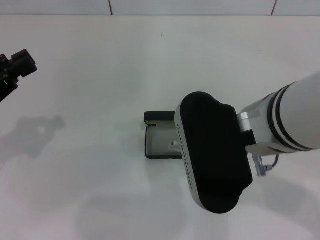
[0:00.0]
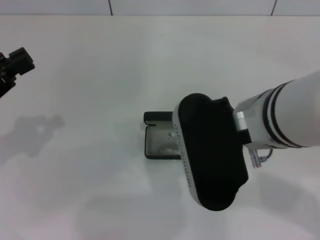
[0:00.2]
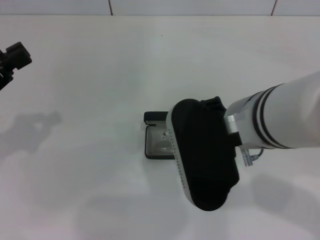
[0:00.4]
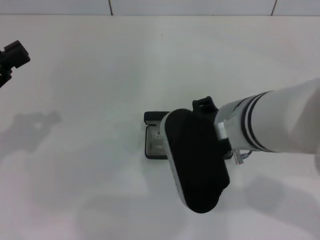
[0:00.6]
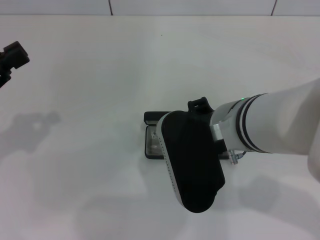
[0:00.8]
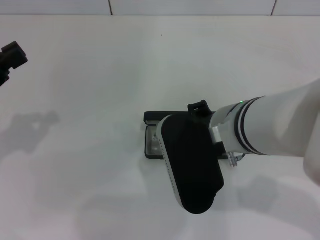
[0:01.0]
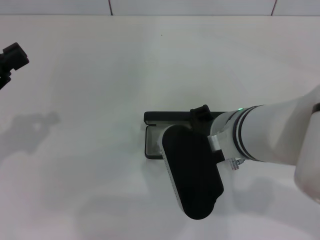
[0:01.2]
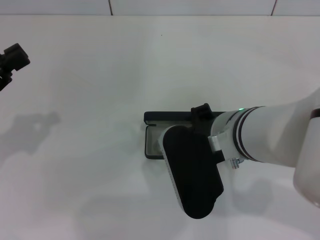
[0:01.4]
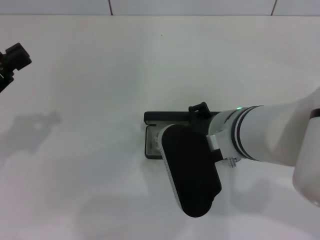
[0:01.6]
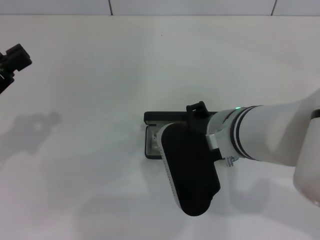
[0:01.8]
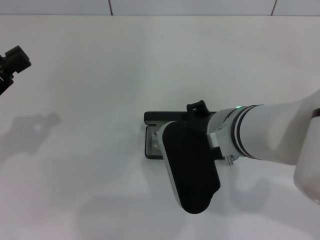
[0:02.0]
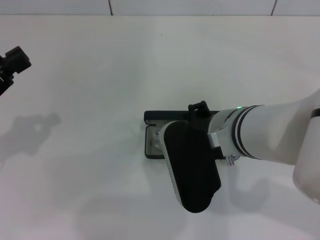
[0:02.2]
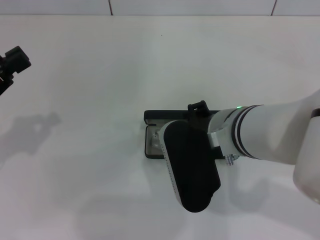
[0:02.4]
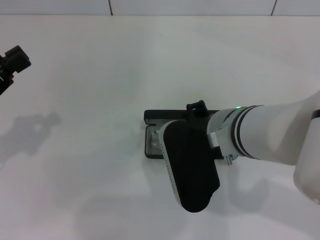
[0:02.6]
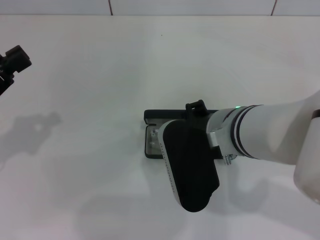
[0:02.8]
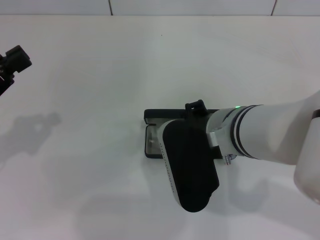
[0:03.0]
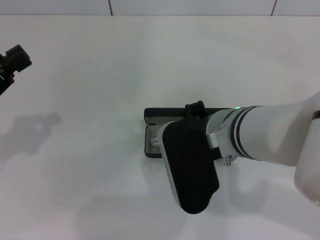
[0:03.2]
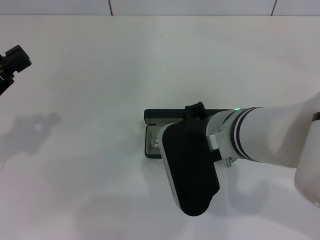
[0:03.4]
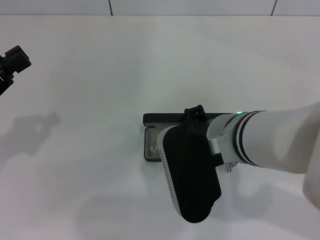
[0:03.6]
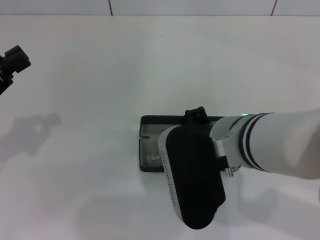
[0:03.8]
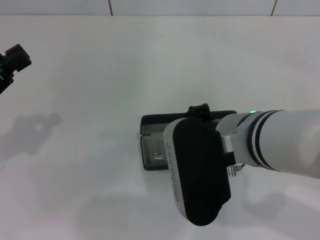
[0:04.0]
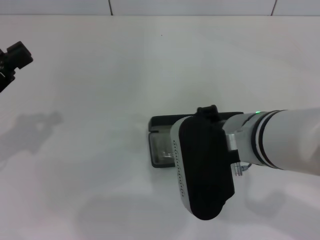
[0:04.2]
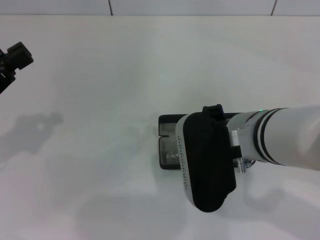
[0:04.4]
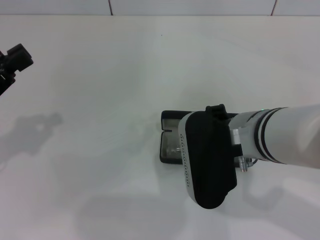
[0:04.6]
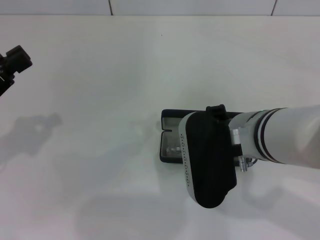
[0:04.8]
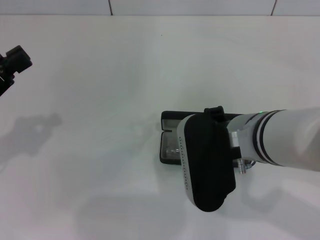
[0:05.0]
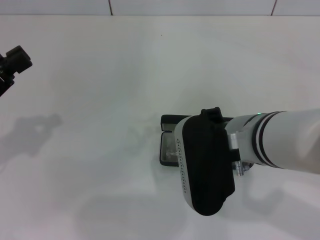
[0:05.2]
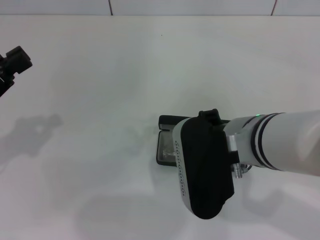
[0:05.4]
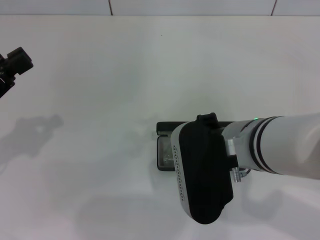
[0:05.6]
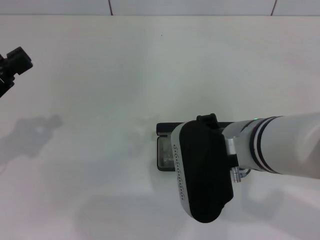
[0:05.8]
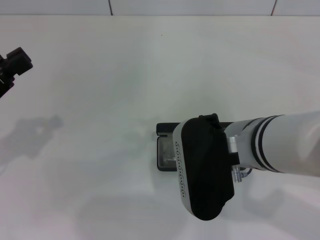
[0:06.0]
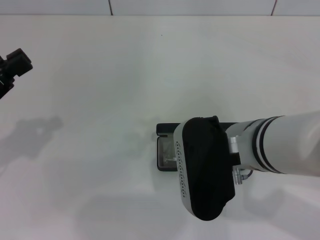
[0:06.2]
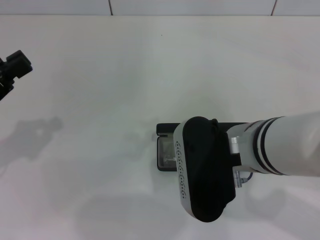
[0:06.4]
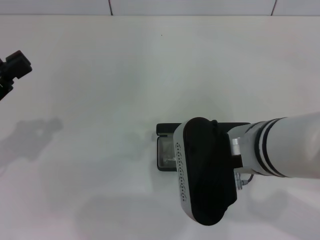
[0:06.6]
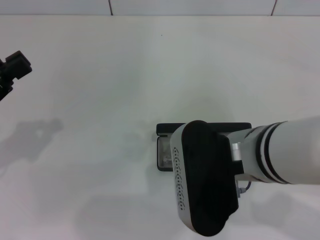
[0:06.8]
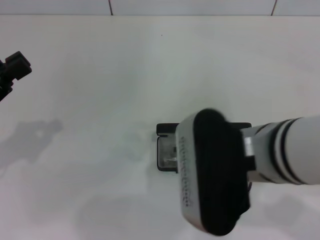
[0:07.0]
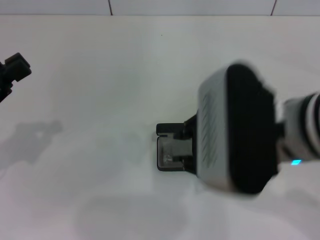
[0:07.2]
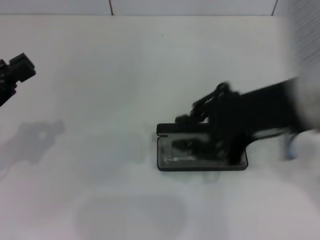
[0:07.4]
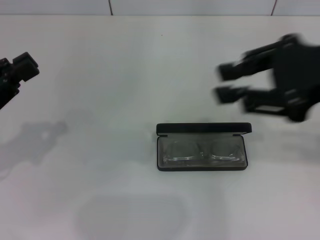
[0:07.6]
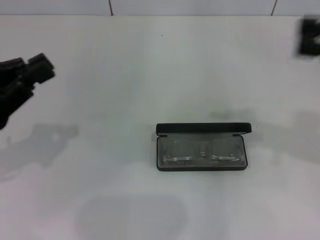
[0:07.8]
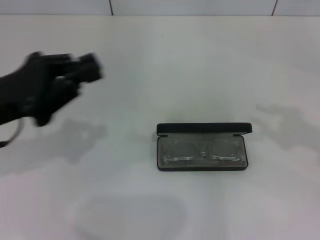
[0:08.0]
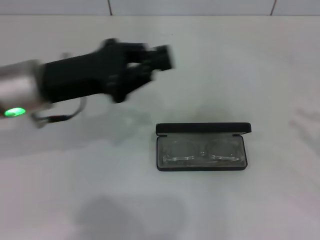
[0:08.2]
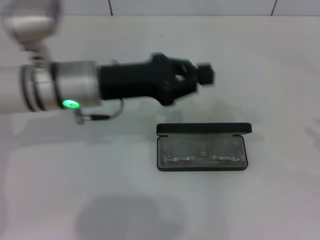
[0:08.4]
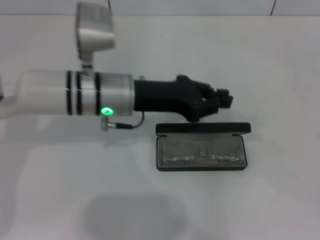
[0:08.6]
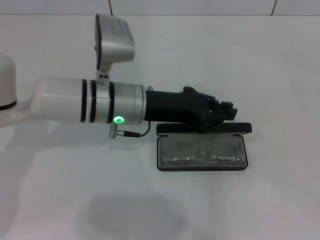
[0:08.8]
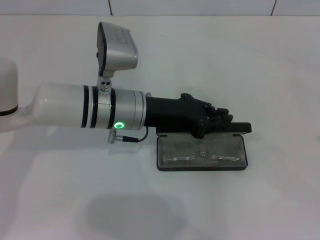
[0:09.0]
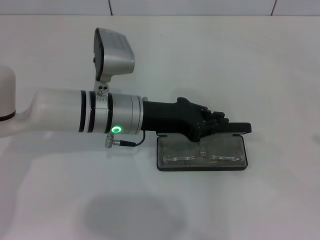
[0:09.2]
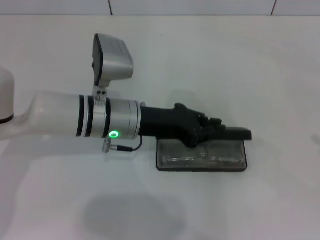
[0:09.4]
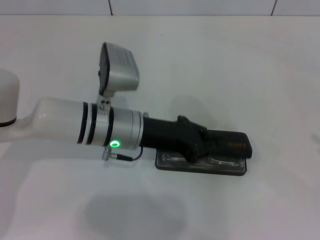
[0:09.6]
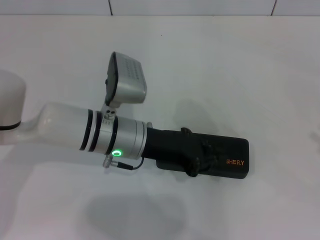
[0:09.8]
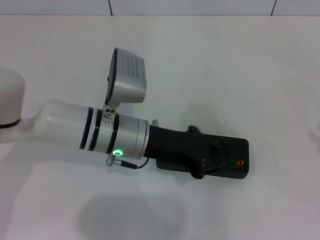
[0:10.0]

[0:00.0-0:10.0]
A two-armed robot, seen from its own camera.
Step, 0:00.0 to 0:06.0: Put the glasses into the case with your right hand.
Step, 0:06.2 to 0:09.6: Close the glasses case with your left hand.
0:00.0 to 0:01.4: The right gripper heads downward, covering about 5 cm.
0:01.4 to 0:02.8: Both grippers stay put.
0:02.8 to 0:05.8: The grippers stay close to where they were, moving slightly.
0:05.8 to 0:07.2: The right gripper shifts some 5 cm upward.
0:07.2 to 0:08.6: The left gripper shifts some 25 cm to the right and forward. Meanwhile the right gripper shifts approximately 35 cm to the right.

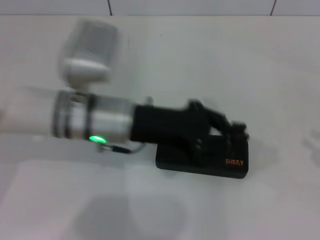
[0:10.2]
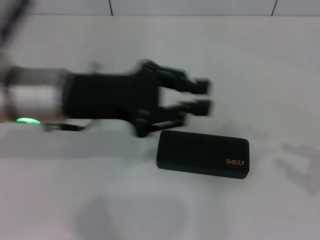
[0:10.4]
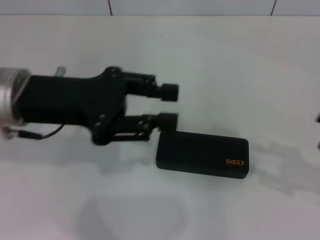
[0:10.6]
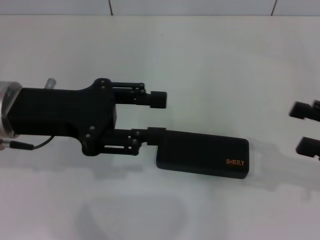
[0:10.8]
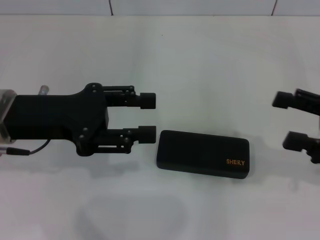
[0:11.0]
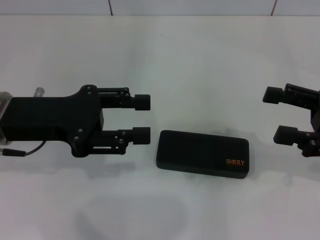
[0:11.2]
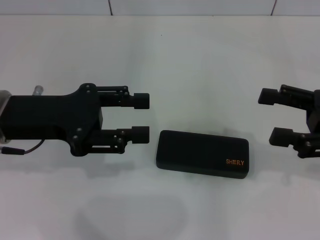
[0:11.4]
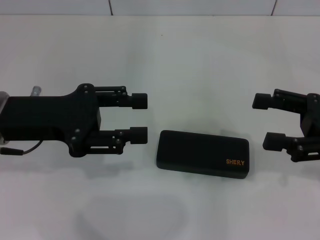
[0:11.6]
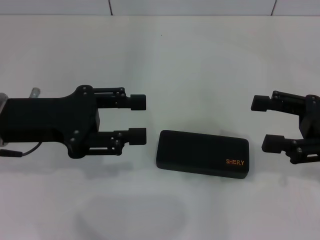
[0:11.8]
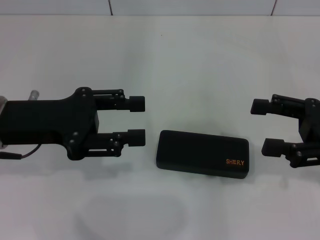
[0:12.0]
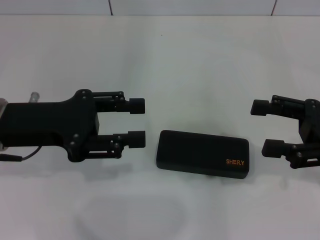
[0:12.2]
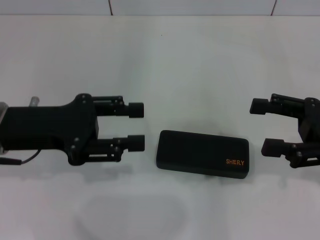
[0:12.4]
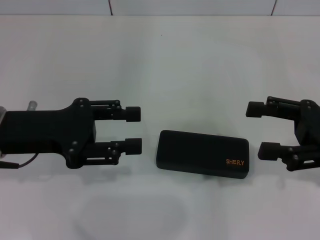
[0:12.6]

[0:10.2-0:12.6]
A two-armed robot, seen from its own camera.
0:10.2 to 0:11.4: The right gripper travels to the left and forward by some 15 cm, and opens up, while the left gripper shifts about 10 cm to the left, and opens.
0:11.4 to 0:12.6: The grippers move only a little.

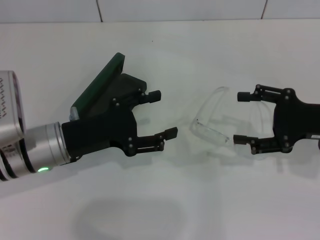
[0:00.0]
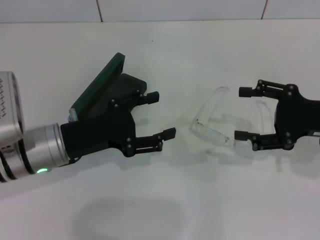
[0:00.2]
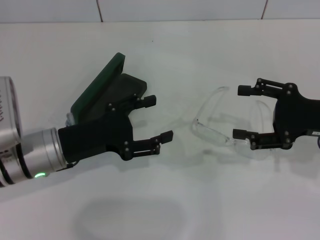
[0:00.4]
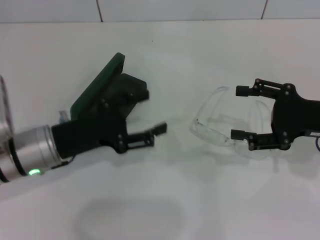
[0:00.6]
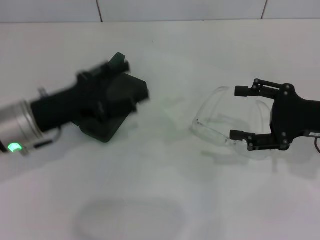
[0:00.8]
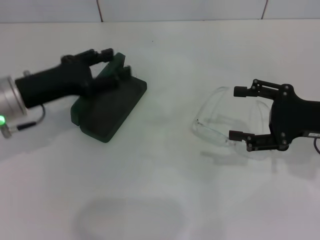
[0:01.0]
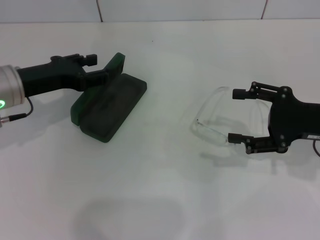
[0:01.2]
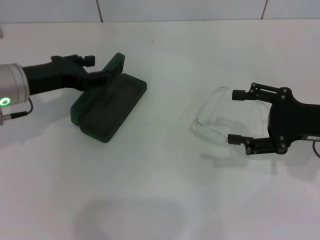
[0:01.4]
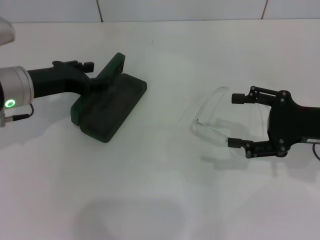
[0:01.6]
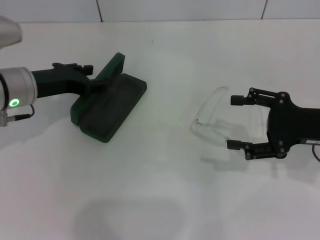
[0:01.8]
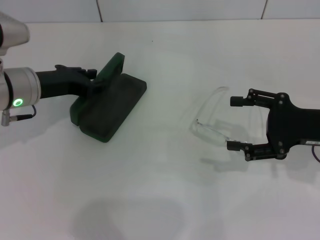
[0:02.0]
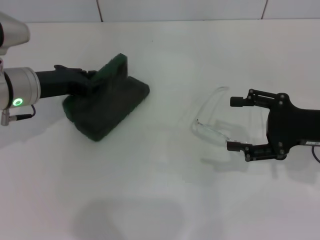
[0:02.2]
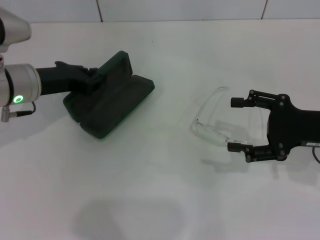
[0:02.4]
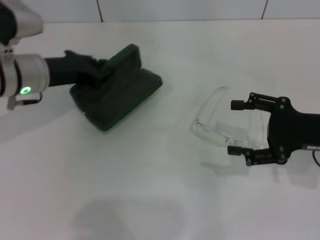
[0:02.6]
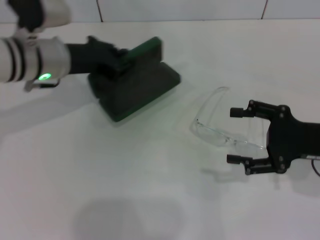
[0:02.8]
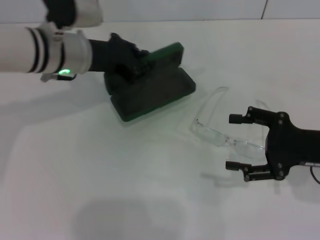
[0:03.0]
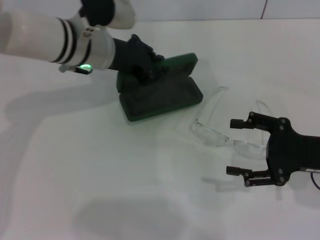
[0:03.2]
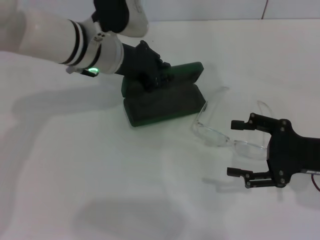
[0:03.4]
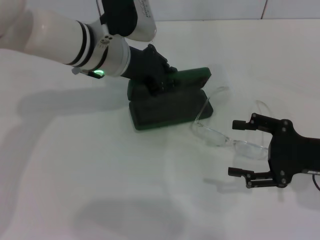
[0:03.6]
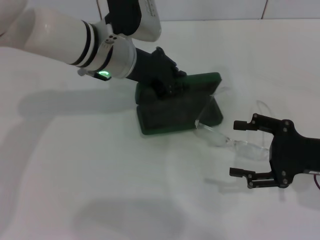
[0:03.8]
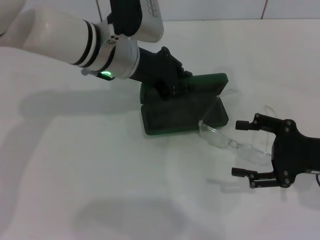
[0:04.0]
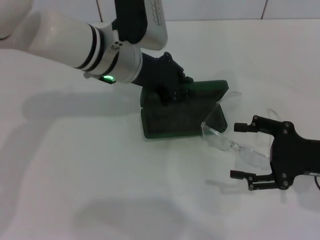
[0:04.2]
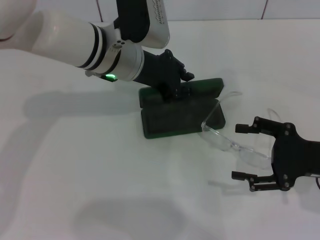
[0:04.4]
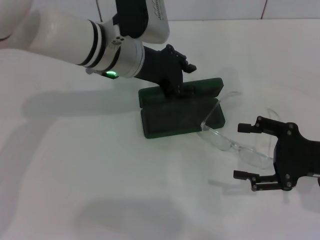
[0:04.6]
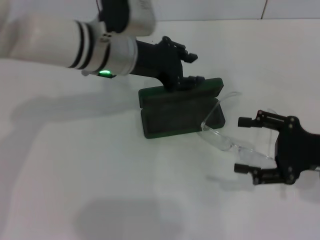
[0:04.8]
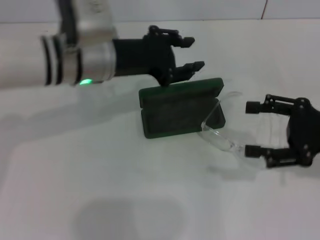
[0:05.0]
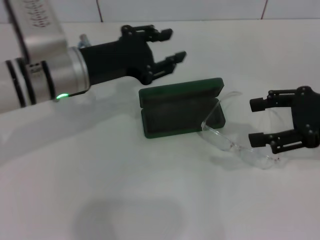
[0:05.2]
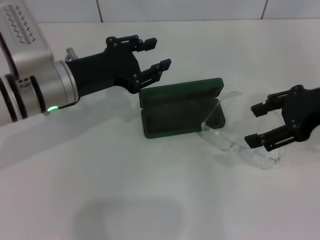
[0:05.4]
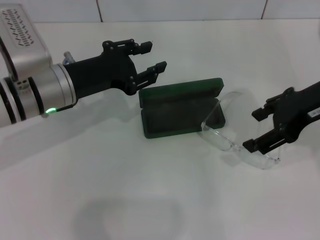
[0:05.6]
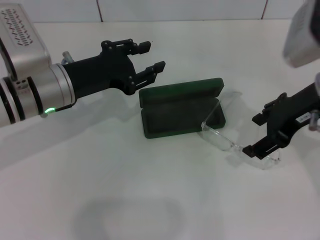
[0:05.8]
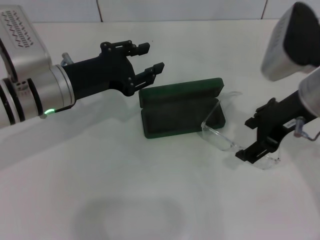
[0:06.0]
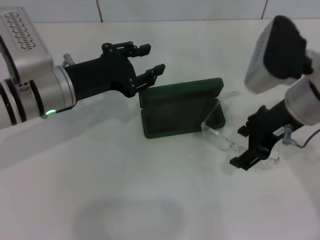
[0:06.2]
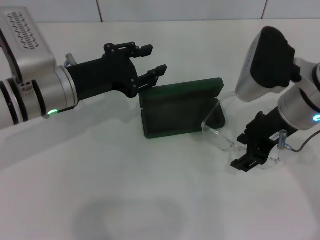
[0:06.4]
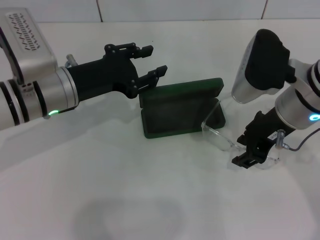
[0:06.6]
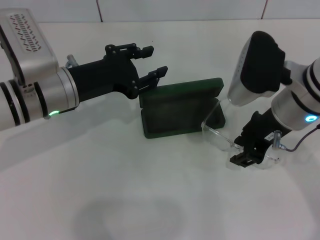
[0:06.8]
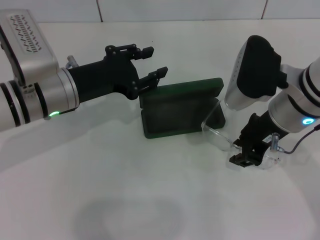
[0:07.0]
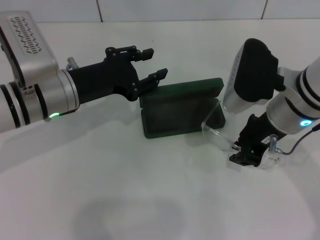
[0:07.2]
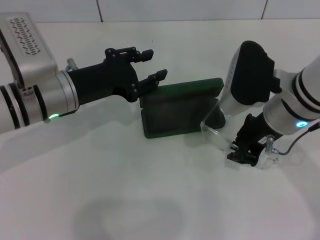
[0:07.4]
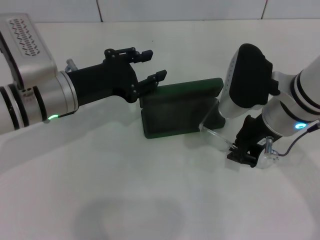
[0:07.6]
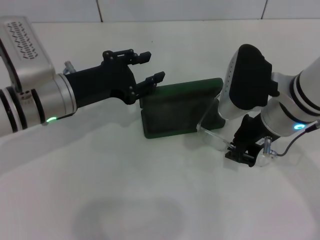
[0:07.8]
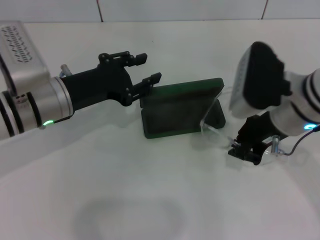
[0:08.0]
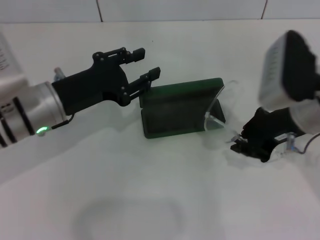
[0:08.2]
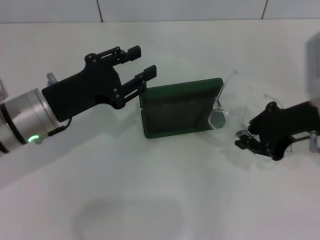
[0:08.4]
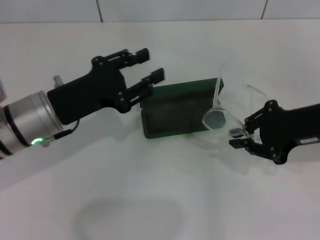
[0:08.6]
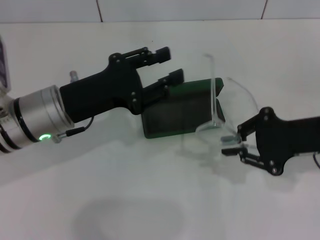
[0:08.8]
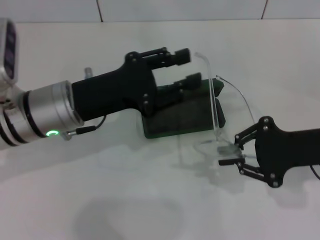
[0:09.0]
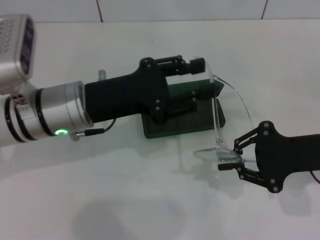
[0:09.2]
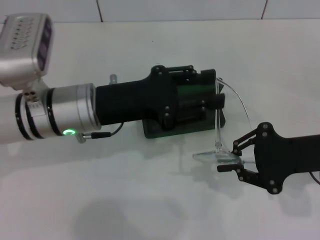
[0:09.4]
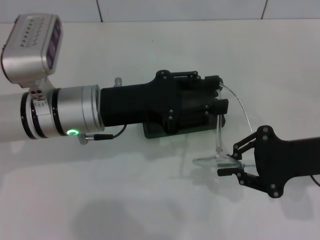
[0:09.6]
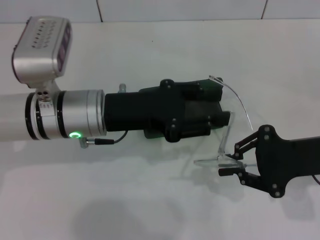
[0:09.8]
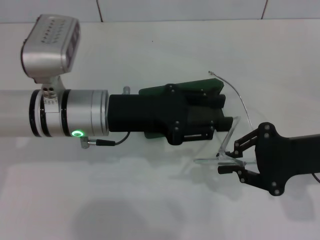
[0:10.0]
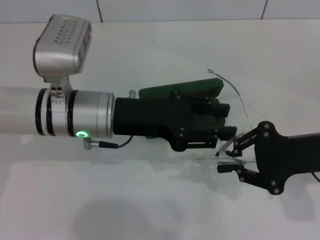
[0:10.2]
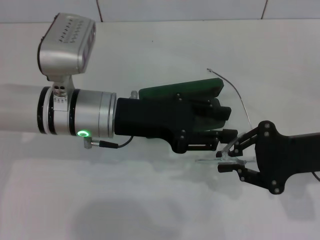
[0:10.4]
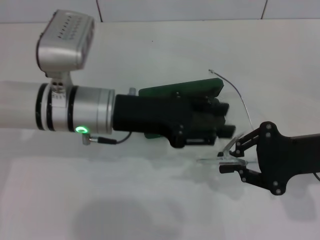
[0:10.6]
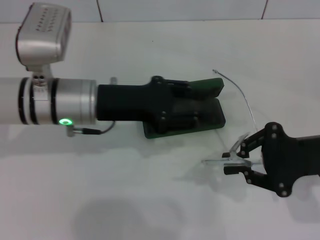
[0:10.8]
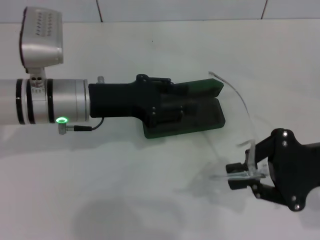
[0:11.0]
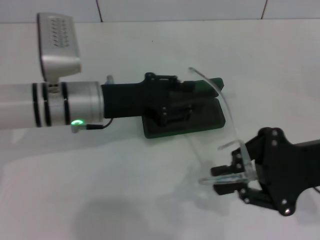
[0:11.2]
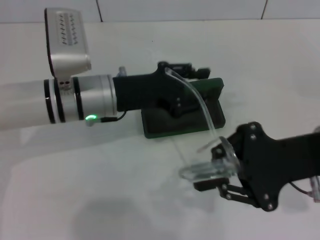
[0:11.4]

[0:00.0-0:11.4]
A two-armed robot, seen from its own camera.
Step, 0:00.0 to 0:01.8: Grab the glasses case with your left hand.
Step, 0:02.2 to 0:04.4: Place the glasses case in the center of the table with your left hand.
Step, 0:04.8 to 0:07.4: Grab the eyeglass frame with your right hand.
0:00.0 to 0:01.4: The left gripper is displaced forward and to the left by roughly 10 cm.
0:01.4 to 0:02.8: The left gripper heads to the right, covering approximately 5 cm, and closes.
0:02.8 to 0:04.2: The left gripper goes about 10 cm to the right.
0:04.2 to 0:05.6: The right gripper shifts approximately 15 cm upward, forward and to the left. Meanwhile the left gripper heads to the left and backward, covering some 10 cm, and opens.
0:05.6 to 0:07.2: The right gripper travels to the left and downward by roughly 10 cm, and closes its fingers.
0:07.2 to 0:08.6: The right gripper moves to the right, some 10 cm.
0:08.6 to 0:10.0: The left gripper goes some 5 cm to the right.
